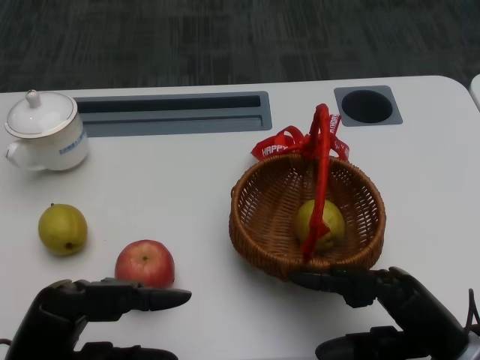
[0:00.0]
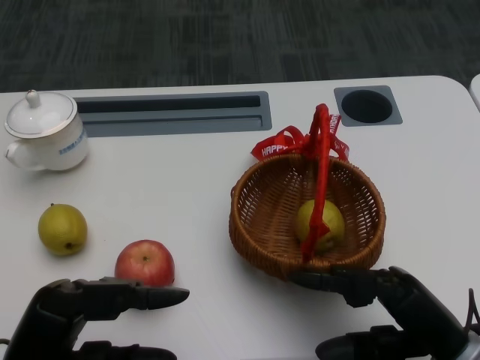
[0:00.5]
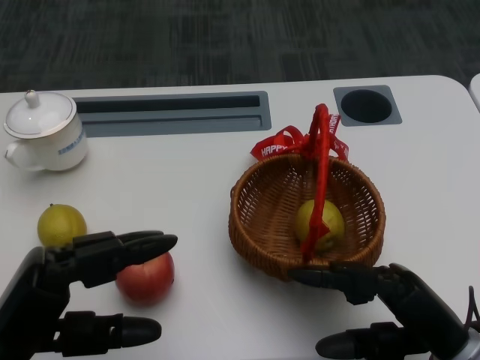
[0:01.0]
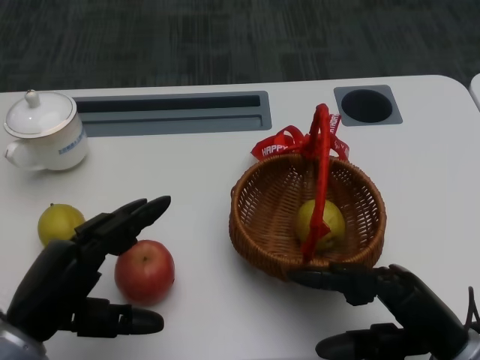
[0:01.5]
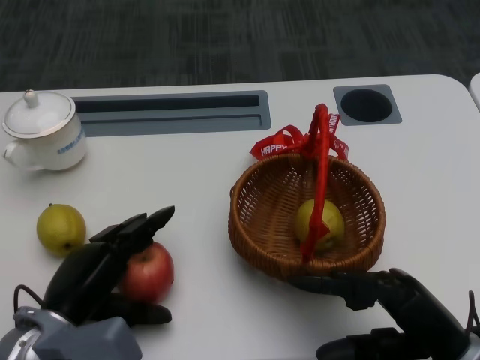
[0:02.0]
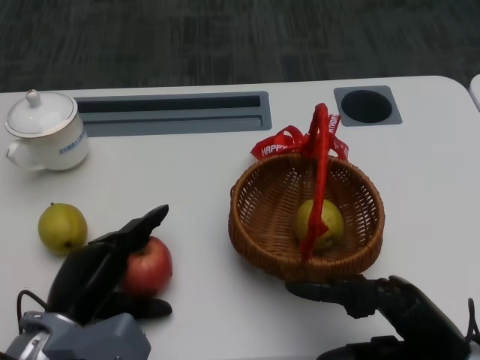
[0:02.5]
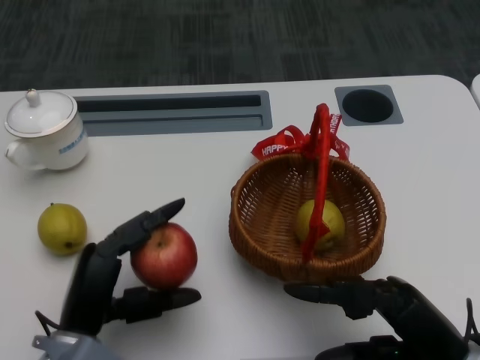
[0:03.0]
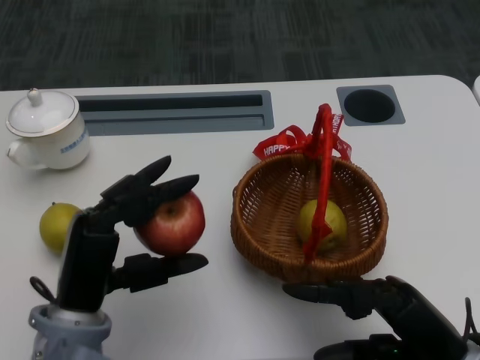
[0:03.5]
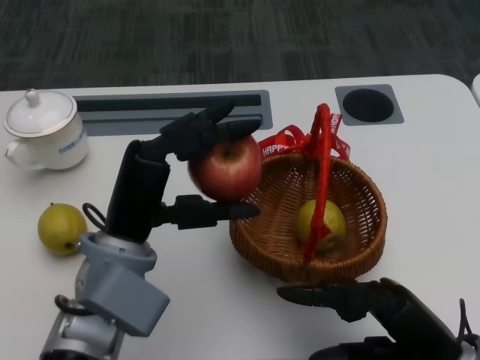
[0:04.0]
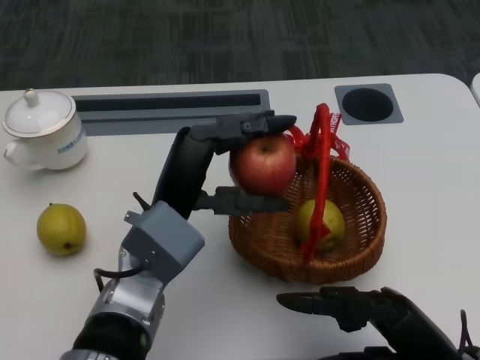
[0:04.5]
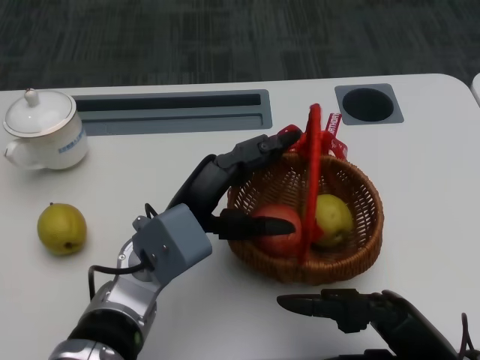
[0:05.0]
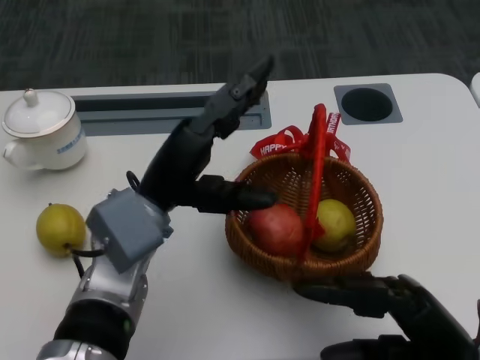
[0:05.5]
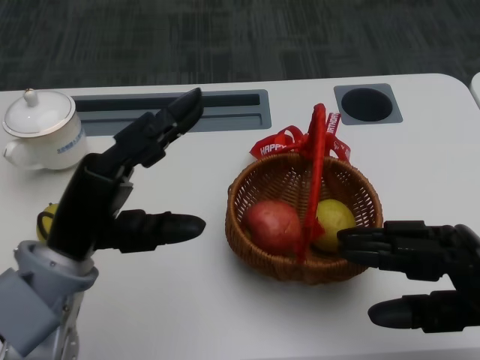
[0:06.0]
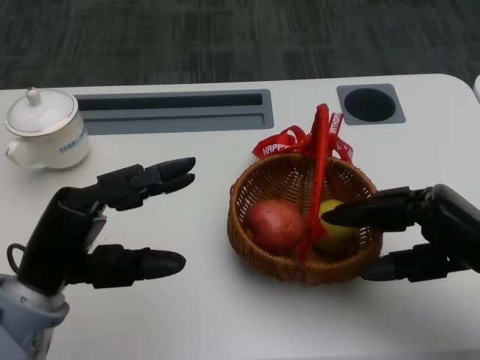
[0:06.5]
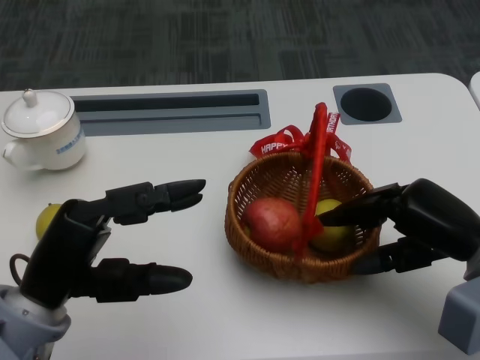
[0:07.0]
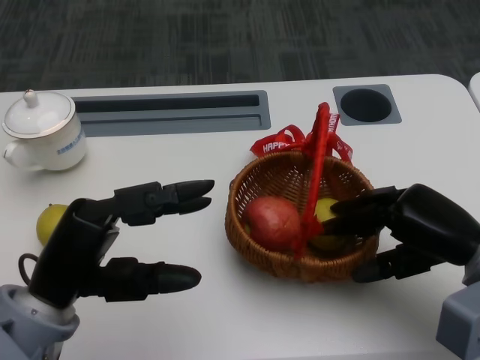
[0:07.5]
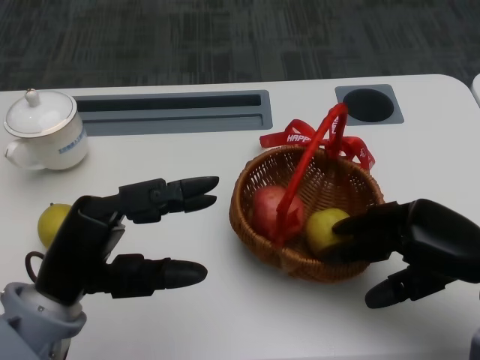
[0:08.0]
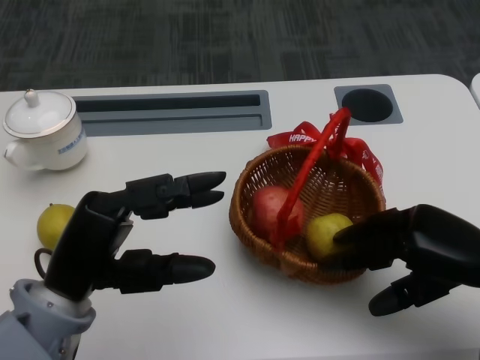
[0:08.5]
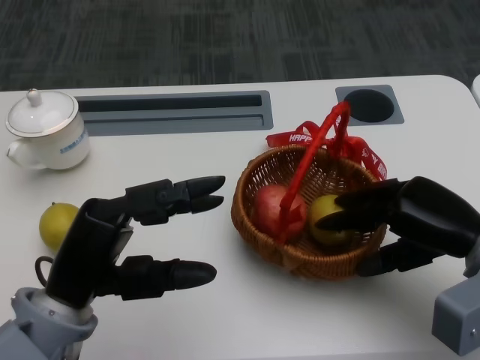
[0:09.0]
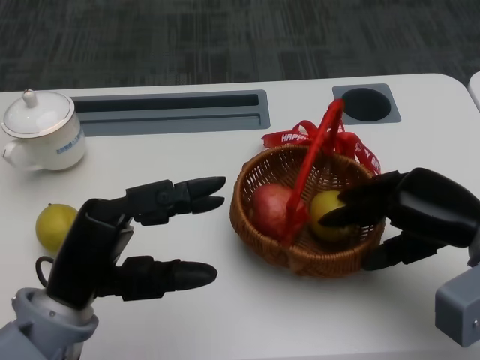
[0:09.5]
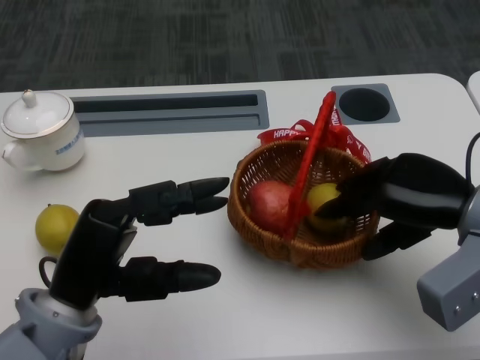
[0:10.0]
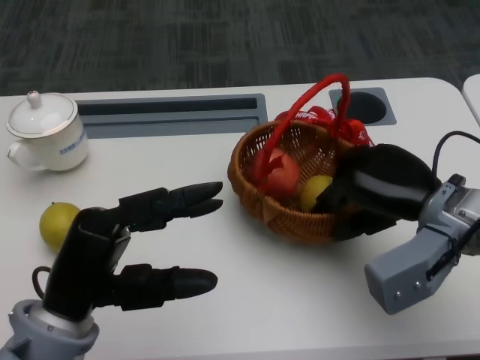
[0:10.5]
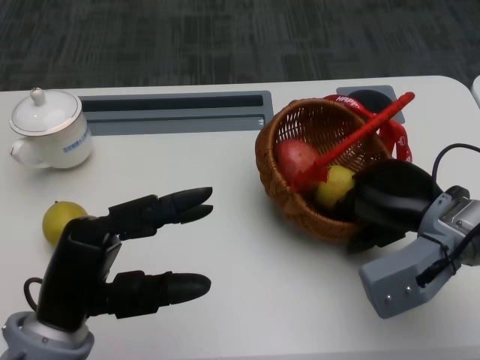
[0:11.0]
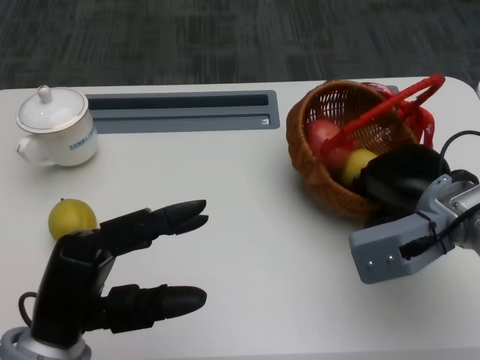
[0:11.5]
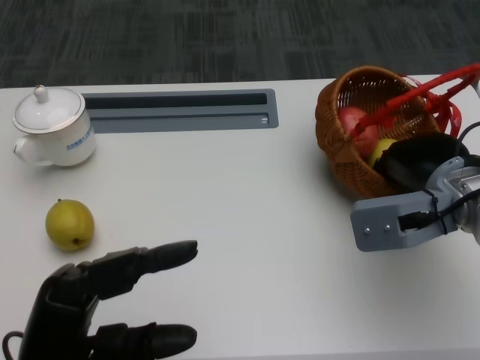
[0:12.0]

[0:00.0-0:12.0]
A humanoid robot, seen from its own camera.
Step, 0:01.0 to 0:01.5: Grasp the apple with the left gripper.
Step, 0:02.0 to 0:04.0: Place the apple into the basket with the left gripper.
Step, 0:04.5 to 0:08.5: Grasp the basket with the right gripper.
Step, 0:09.0 to 0:10.5: Move the basket to the front of the table with the right gripper.
0:02.0 to 0:04.0: The left hand heads upward and to the right, covering approximately 10 cm.
0:04.0 to 0:06.0: The right hand moves about 5 cm.
0:06.0 to 0:08.0: The right hand moves forward, approximately 5 cm.
0:08.0 to 0:10.0: The right hand ends up roughly 5 cm from where it was.
0:10.0 to 0:12.0: The left hand changes place by roughly 5 cm.

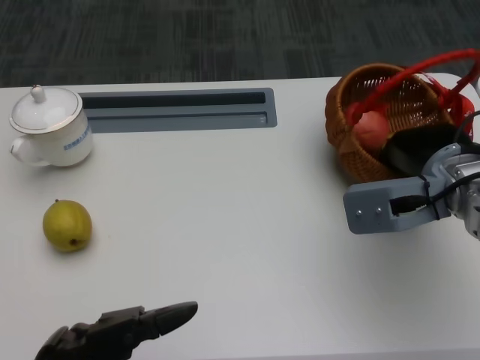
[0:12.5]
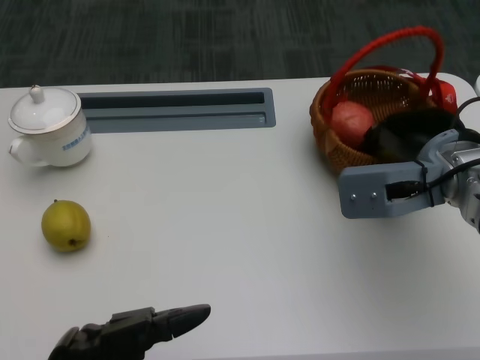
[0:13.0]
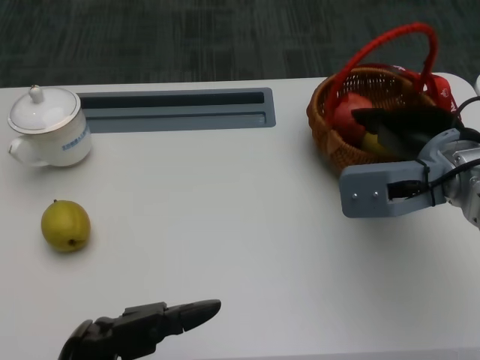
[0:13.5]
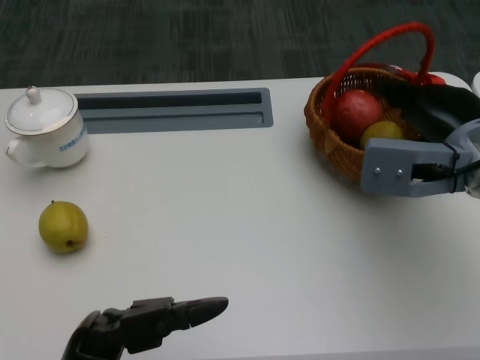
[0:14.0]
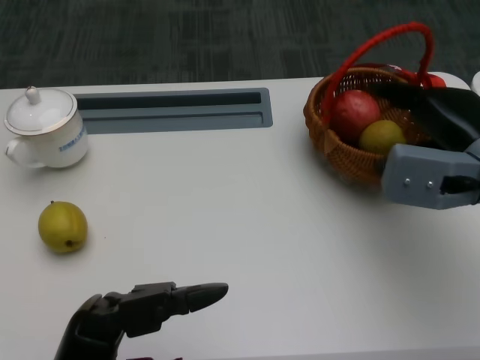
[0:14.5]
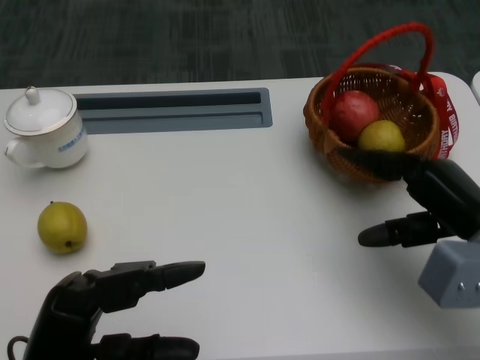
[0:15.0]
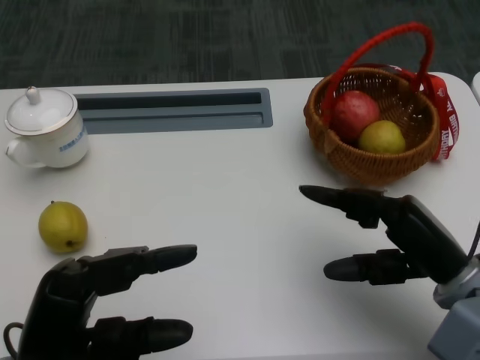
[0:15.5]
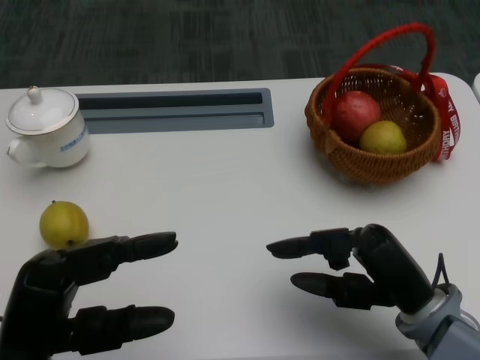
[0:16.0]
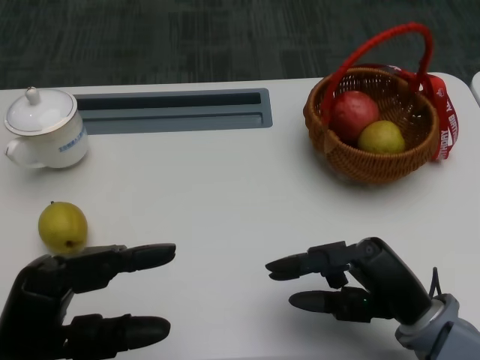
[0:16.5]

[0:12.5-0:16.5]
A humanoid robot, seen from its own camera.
0:14.5 to 0:16.5: The left hand ends up about 5 cm from where it was. The right hand goes some 15 cm backward, downward and to the left.
